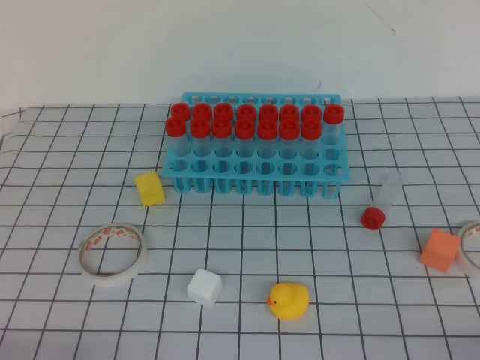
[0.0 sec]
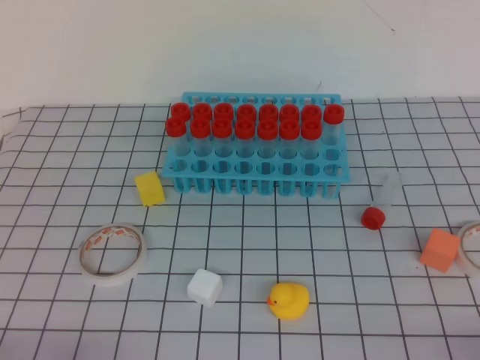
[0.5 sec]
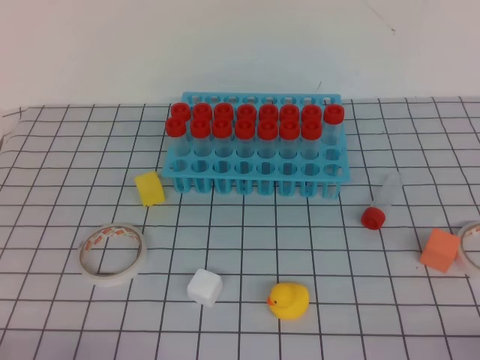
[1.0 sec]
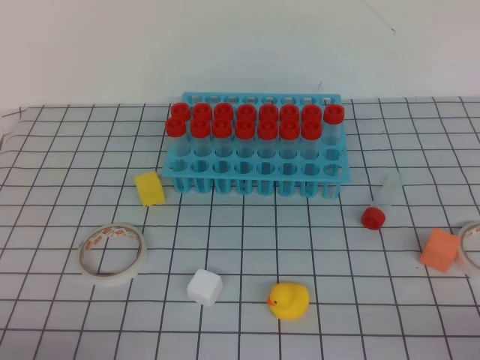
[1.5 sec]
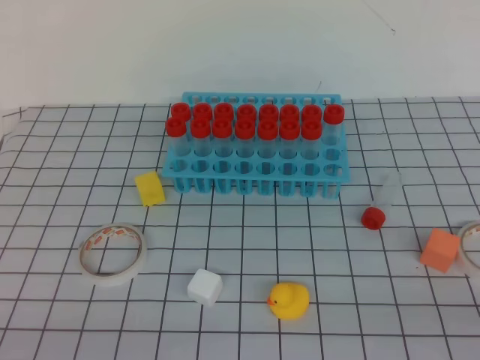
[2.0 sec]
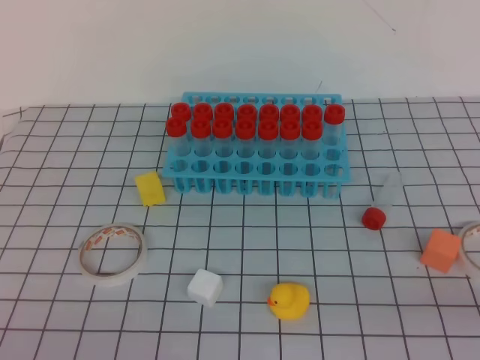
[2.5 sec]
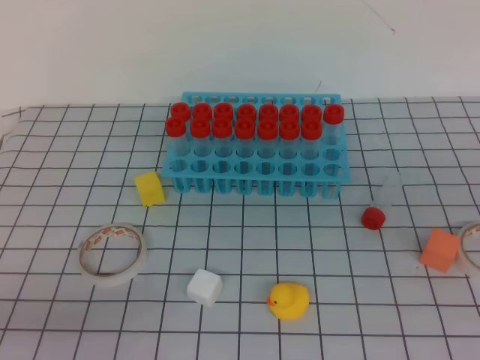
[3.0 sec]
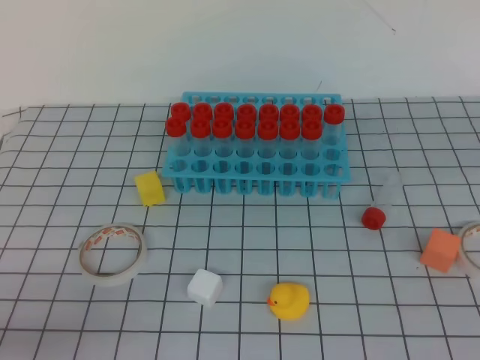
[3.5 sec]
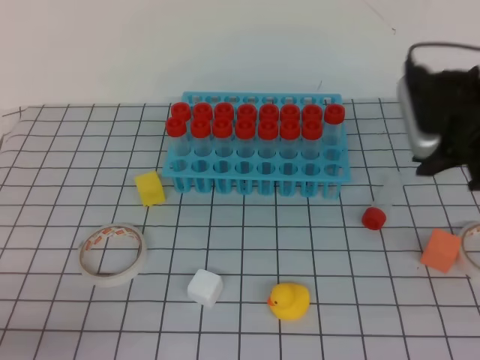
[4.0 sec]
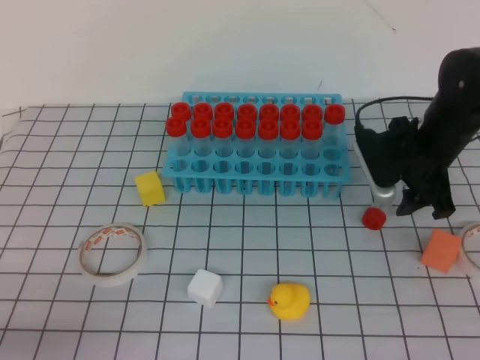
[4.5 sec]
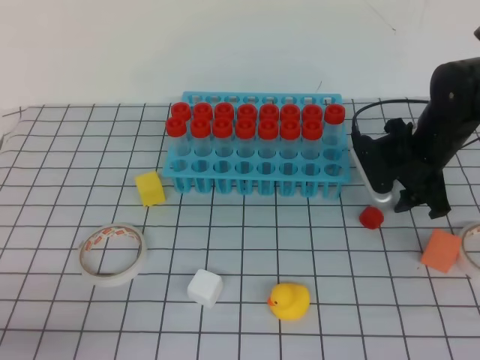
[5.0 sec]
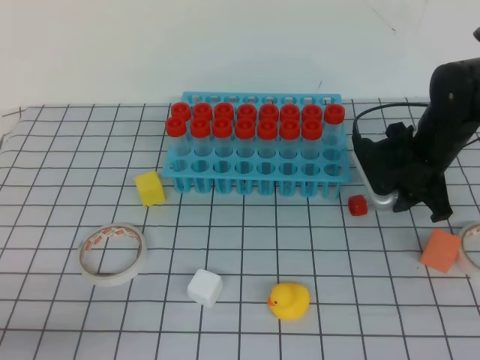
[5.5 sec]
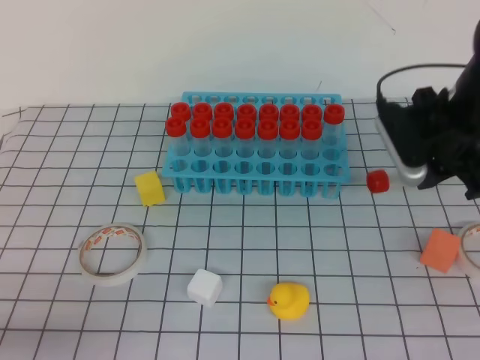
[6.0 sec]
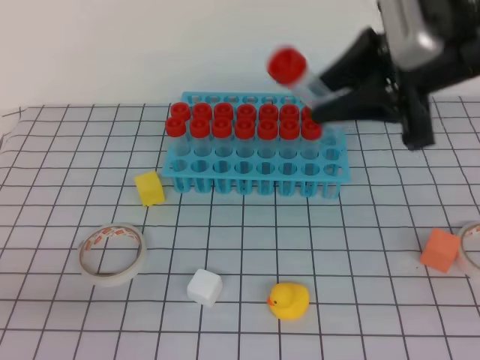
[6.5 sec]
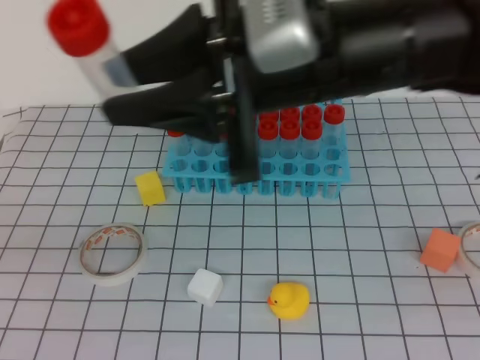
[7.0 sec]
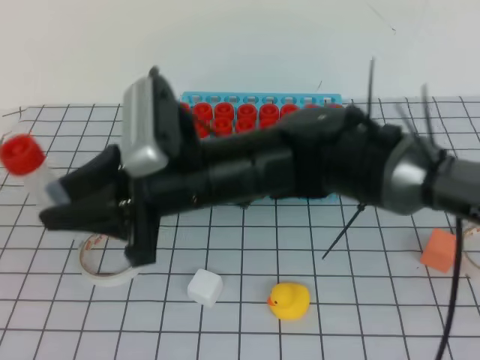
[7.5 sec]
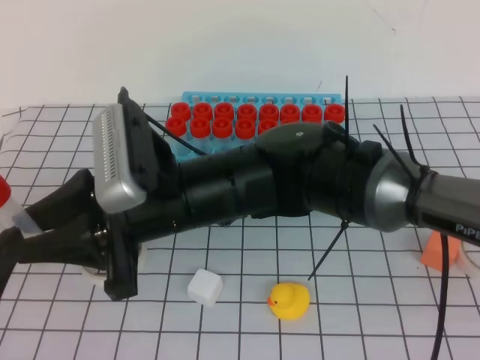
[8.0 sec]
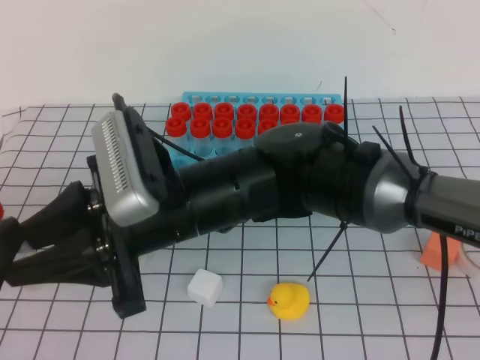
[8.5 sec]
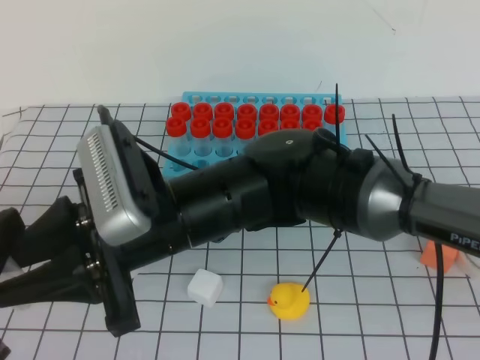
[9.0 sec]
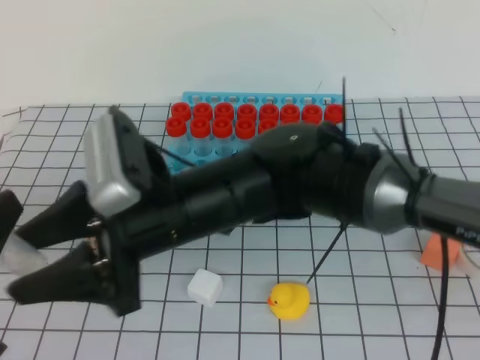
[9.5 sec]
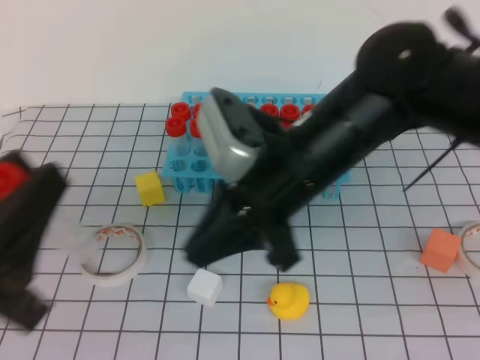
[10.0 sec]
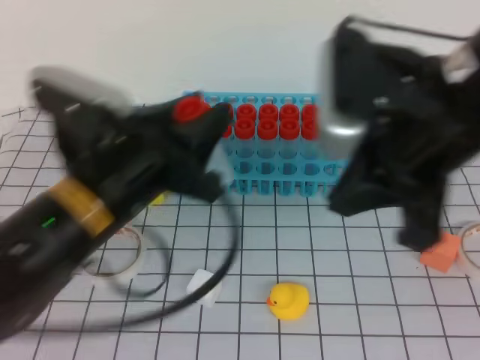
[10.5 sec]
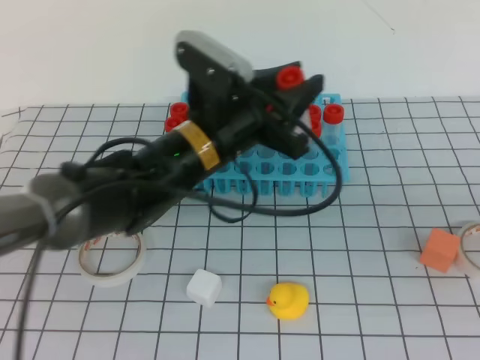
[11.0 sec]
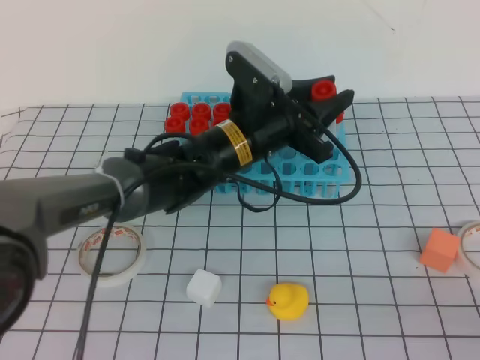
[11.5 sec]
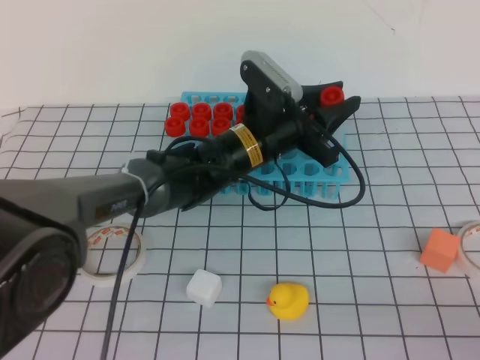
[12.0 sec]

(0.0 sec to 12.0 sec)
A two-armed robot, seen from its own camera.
2.0 sec - 4.0 sec: The right gripper heads forward, covering about 35 cm, and opens.
4.0 sec - 6.0 sec: The right gripper moves about 10 cm downward and comes back, and opens, then closes again.
6.0 sec - 8.0 sec: The right gripper heads to the left and backward, covering roughly 30 cm. Meanwhile the left gripper moves upward, roughly 10 cm, and opens up.
8.0 sec - 10.0 sec: The right gripper heads to the right, covering approximately 10 cm, and opens, then closes once more.
10.0 sec - 12.0 sec: The left gripper travels forward and to the right by about 35 cm; the right gripper travels to the right and backward by some 35 cm.

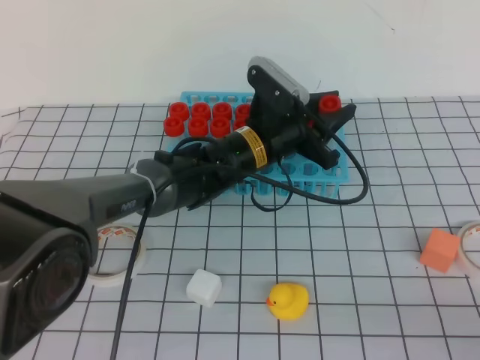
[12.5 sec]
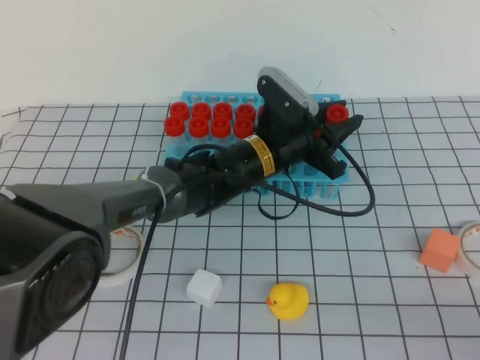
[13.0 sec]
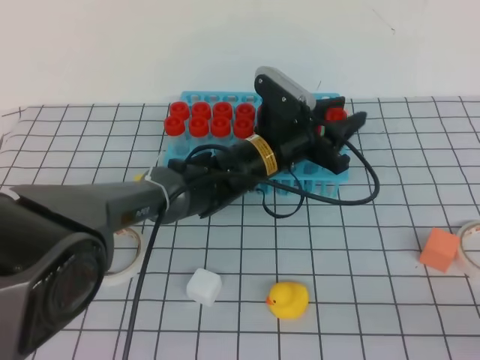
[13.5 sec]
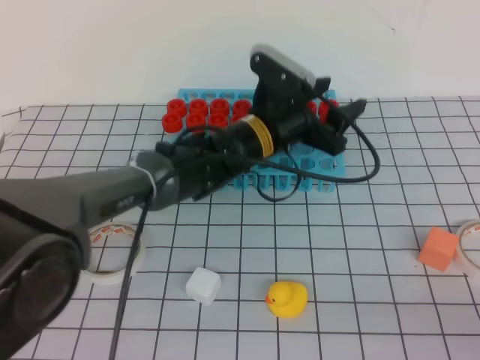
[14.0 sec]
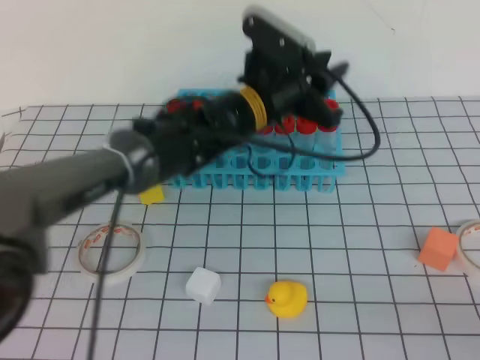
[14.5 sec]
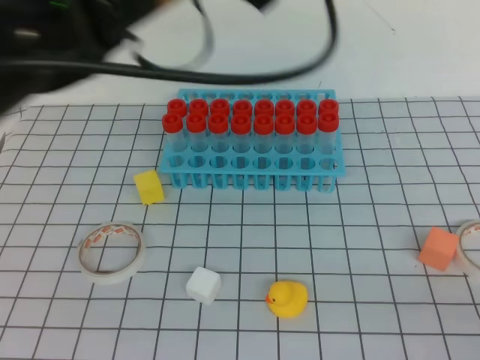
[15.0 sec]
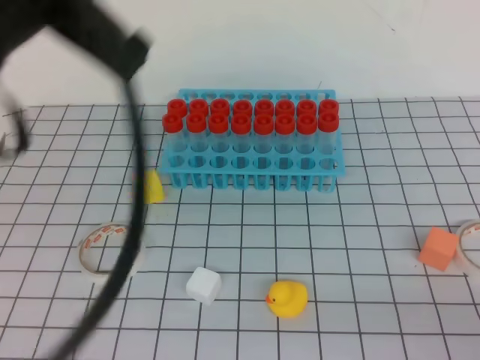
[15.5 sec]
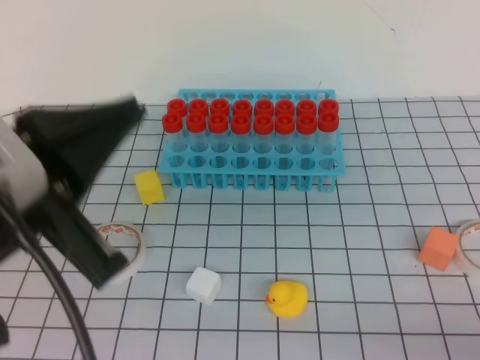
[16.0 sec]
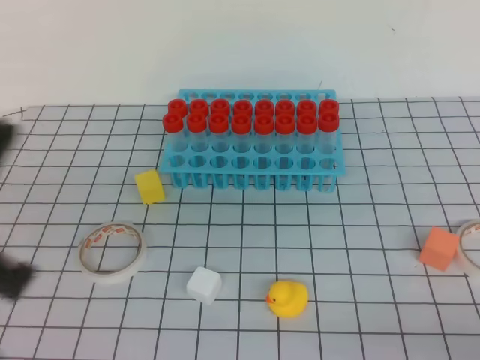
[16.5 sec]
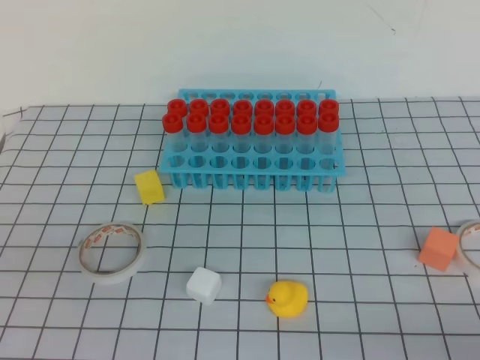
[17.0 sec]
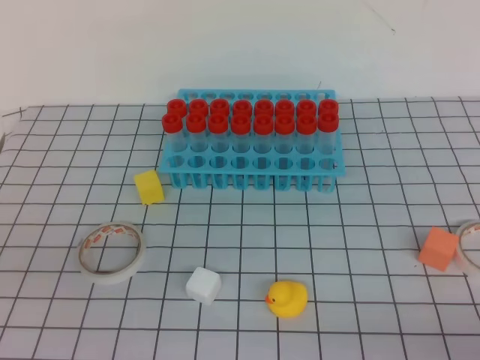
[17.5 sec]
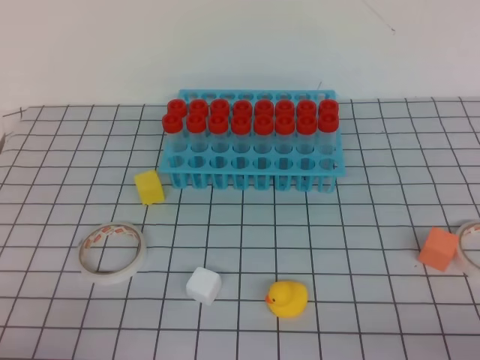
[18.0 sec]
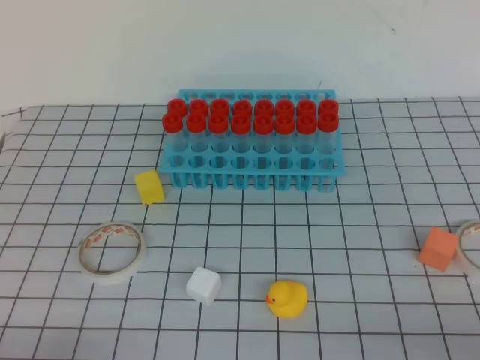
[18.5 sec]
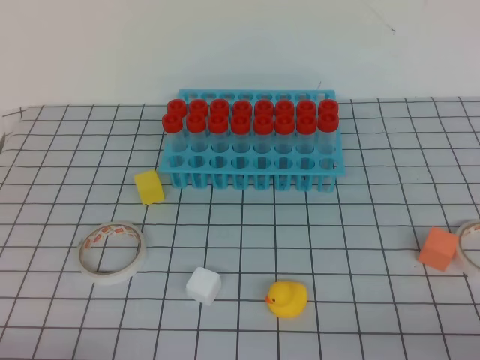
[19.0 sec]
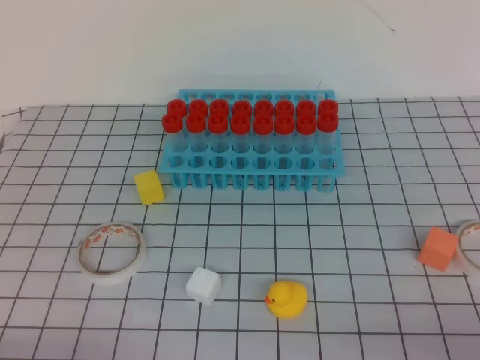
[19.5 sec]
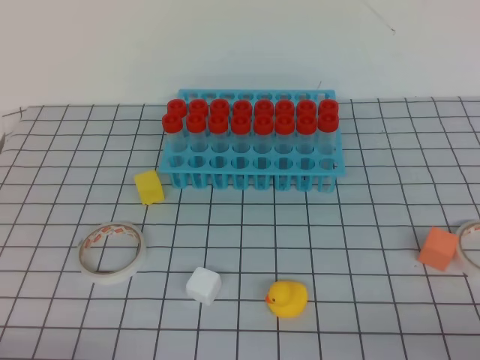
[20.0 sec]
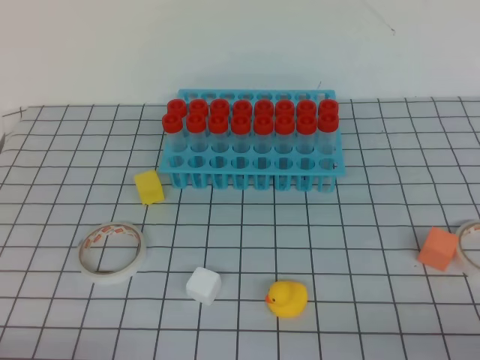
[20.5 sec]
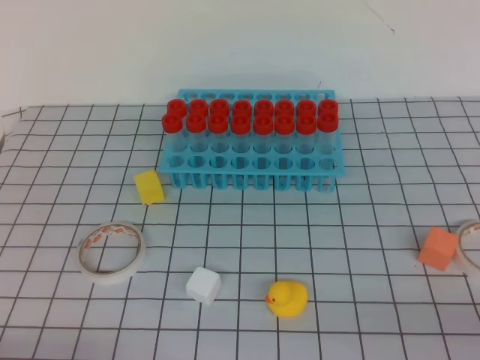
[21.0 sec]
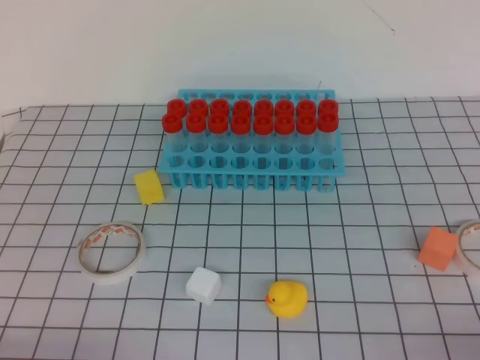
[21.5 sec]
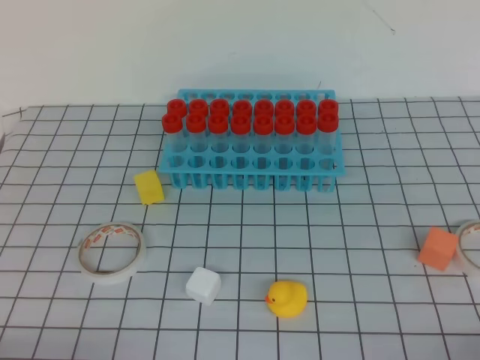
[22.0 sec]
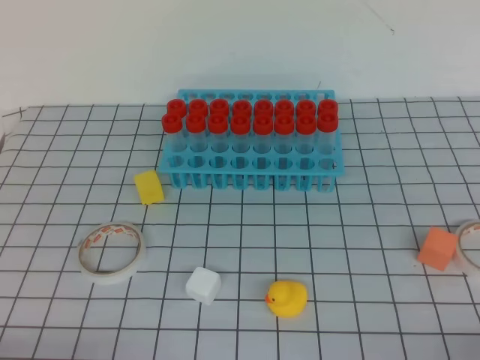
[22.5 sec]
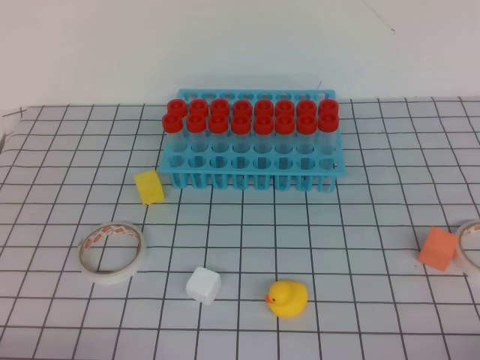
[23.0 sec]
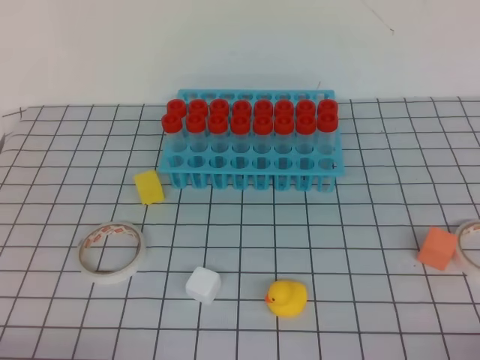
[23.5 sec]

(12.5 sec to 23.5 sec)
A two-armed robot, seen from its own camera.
12.5 sec - 14.5 sec: The left gripper moves upward, some 5 cm, and opens, then closes again.
14.5 sec - 16.0 sec: The right gripper moves downward, approximately 5 cm. The left gripper shifts approximately 30 cm backward and to the left, and closes its fingers.
16.0 sec - 18.0 sec: The left gripper goes roughly 20 cm downward, to the left and backward.
